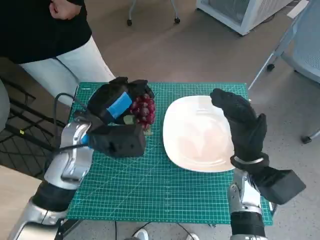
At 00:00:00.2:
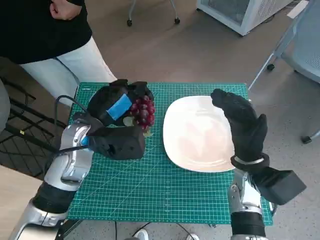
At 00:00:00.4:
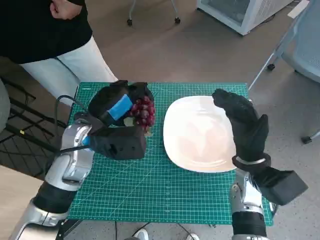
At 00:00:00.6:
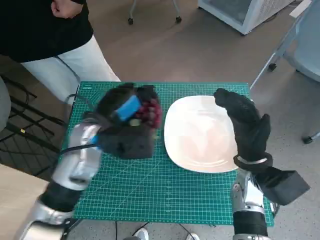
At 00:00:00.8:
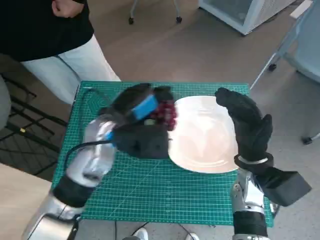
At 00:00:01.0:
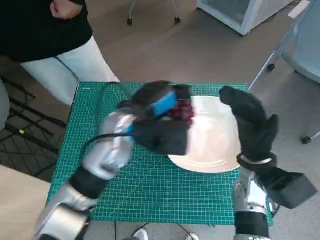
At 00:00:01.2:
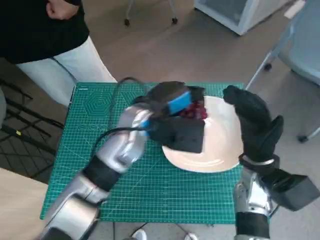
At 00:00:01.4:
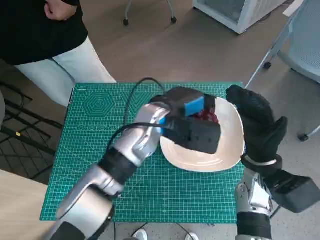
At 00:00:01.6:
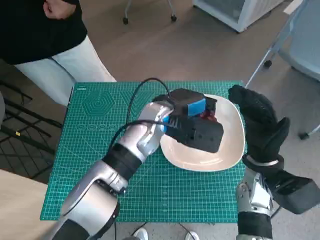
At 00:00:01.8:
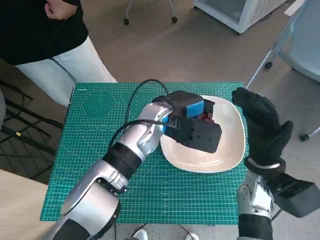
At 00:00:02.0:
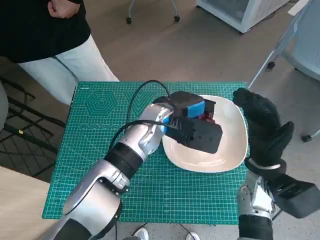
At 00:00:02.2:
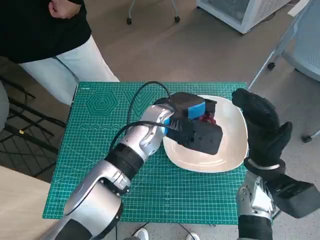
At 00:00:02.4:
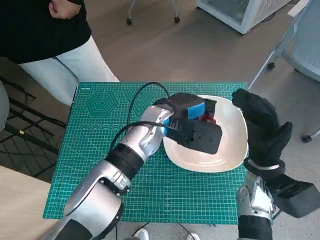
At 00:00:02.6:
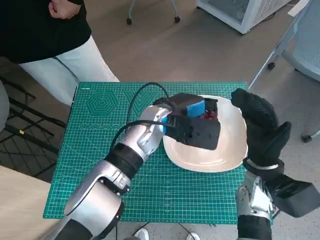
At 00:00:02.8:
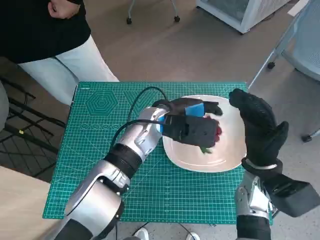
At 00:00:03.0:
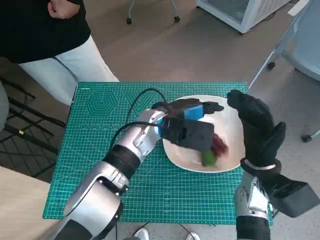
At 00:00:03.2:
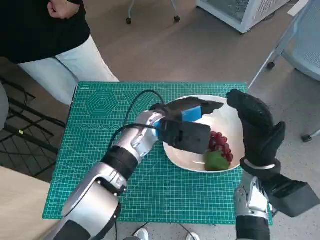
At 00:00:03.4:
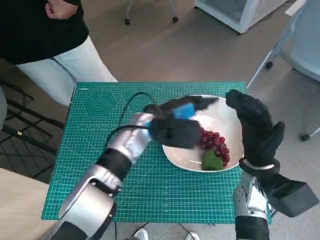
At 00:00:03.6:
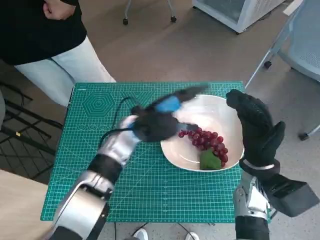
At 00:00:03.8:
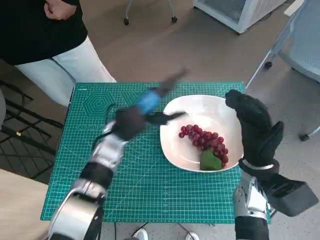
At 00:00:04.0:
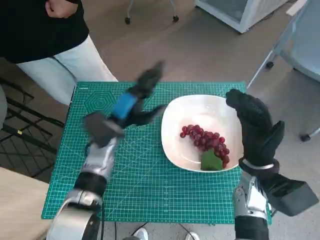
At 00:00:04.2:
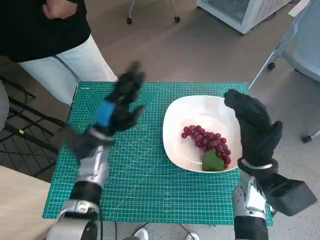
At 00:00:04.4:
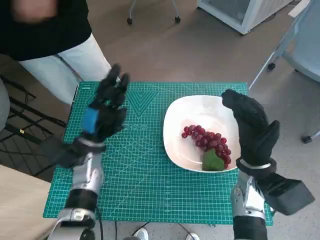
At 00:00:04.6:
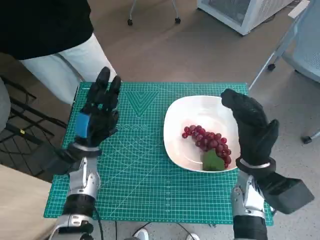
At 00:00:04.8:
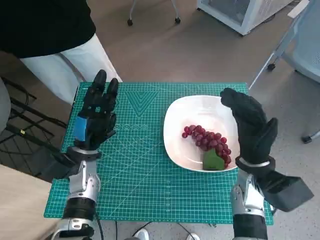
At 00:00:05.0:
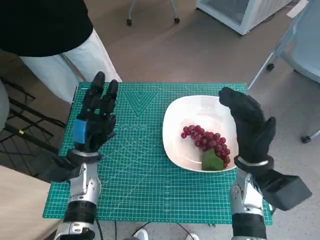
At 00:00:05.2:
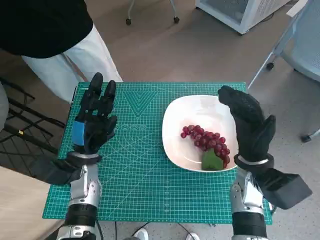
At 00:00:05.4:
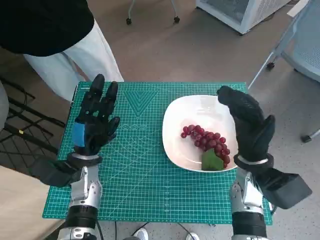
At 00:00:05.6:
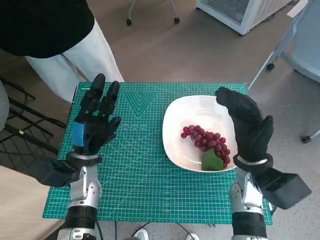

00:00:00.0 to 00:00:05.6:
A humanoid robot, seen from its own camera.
Task of the whole recording: Pick up the grapes and put them on the plate.
Step, 00:00:00.0 to 00:00:03.2: Place the grapes in the plate with left hand.
00:00:00.0 to 00:00:01.4: The left hand travels to the right by approximately 10 cm.
00:00:01.4 to 00:00:02.8: There are only small adjustments of the hands.
00:00:02.8 to 00:00:04.2: The left hand travels to the left and downward by roughly 15 cm.
00:00:04.2 to 00:00:05.6: The left hand moves approximately 5 cm.

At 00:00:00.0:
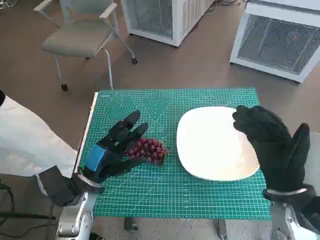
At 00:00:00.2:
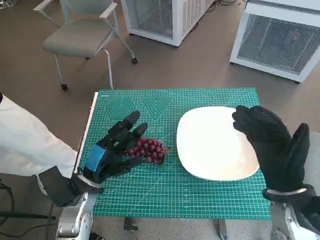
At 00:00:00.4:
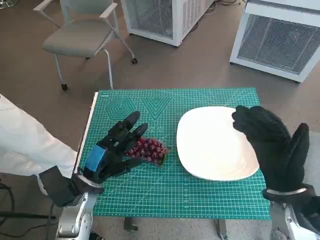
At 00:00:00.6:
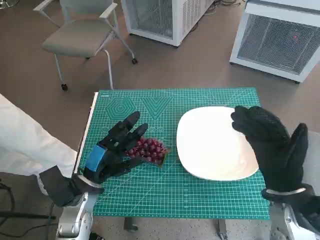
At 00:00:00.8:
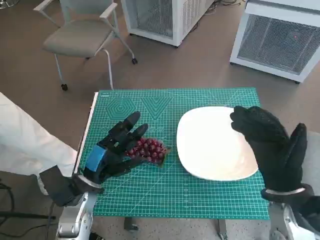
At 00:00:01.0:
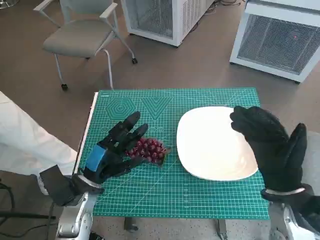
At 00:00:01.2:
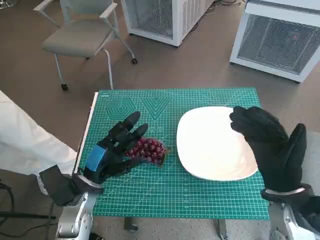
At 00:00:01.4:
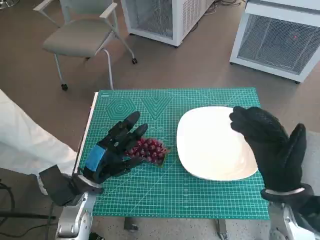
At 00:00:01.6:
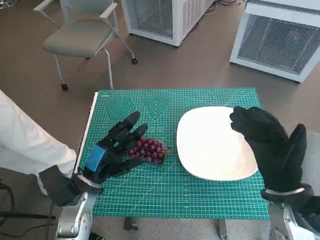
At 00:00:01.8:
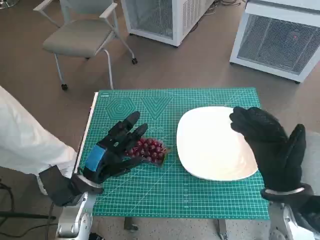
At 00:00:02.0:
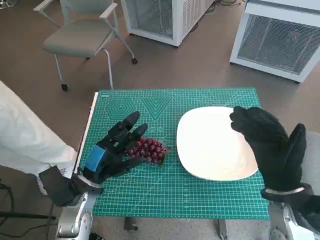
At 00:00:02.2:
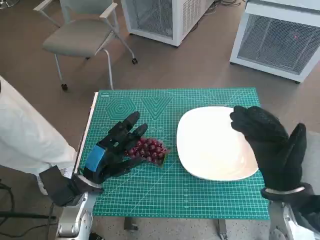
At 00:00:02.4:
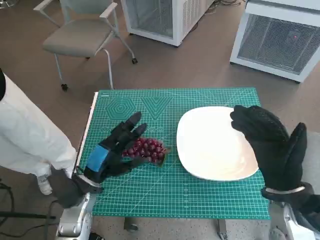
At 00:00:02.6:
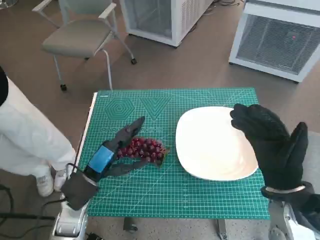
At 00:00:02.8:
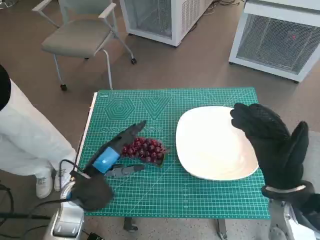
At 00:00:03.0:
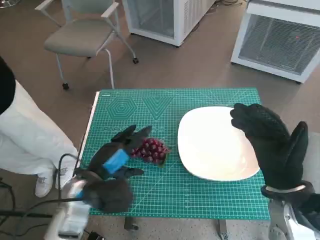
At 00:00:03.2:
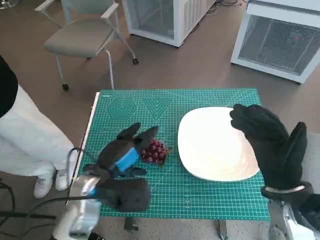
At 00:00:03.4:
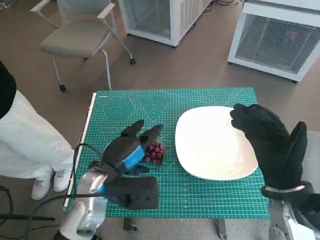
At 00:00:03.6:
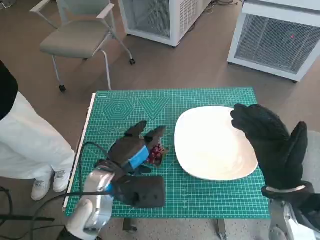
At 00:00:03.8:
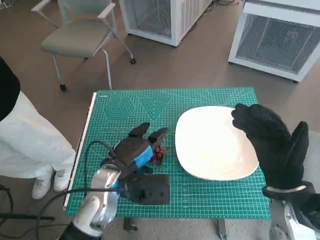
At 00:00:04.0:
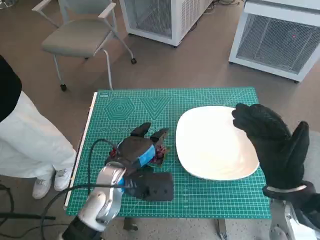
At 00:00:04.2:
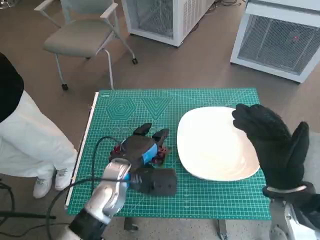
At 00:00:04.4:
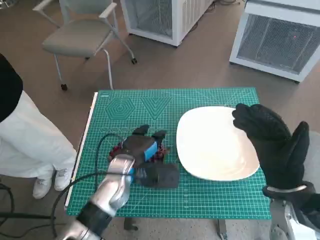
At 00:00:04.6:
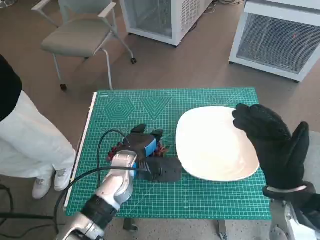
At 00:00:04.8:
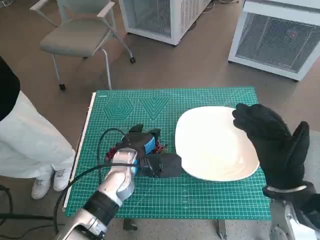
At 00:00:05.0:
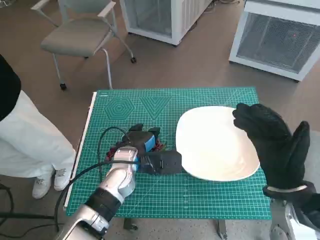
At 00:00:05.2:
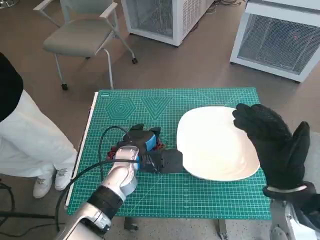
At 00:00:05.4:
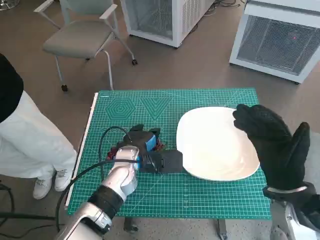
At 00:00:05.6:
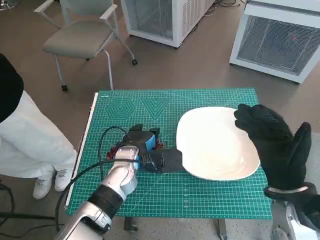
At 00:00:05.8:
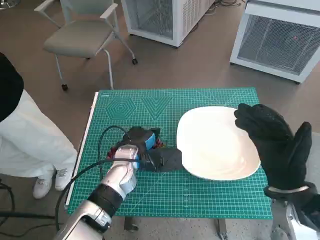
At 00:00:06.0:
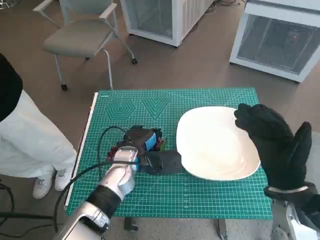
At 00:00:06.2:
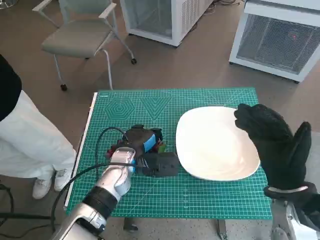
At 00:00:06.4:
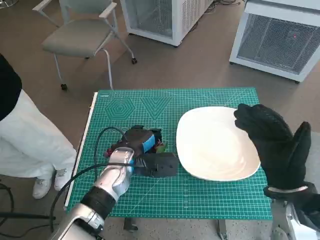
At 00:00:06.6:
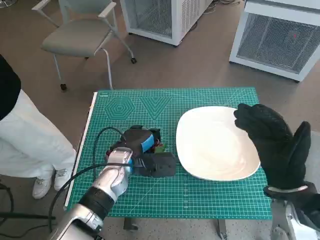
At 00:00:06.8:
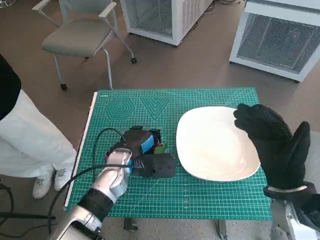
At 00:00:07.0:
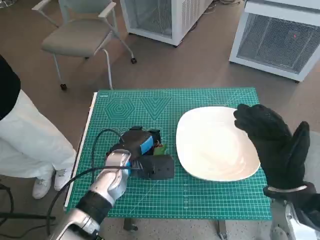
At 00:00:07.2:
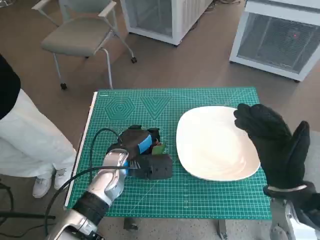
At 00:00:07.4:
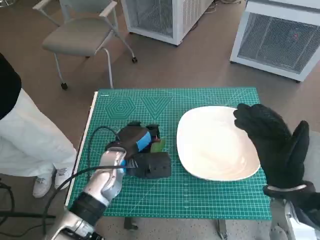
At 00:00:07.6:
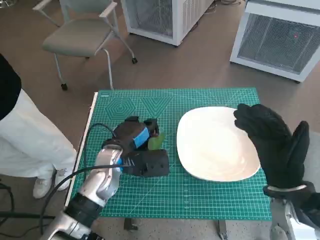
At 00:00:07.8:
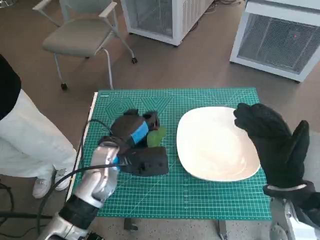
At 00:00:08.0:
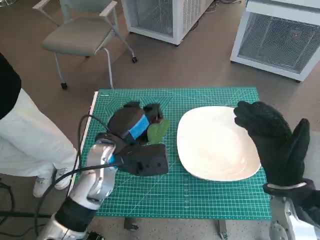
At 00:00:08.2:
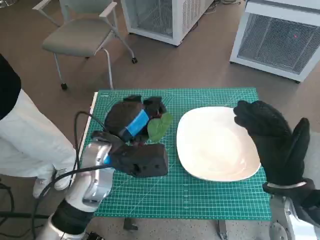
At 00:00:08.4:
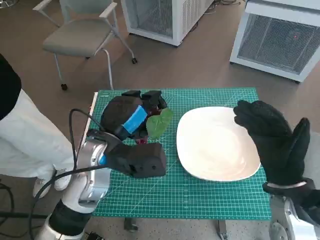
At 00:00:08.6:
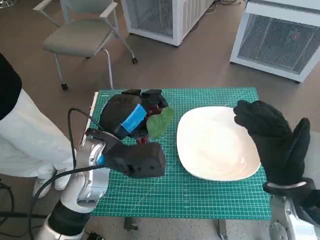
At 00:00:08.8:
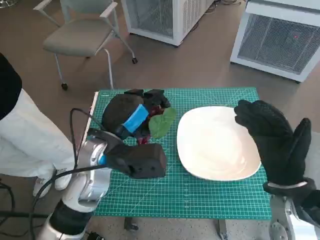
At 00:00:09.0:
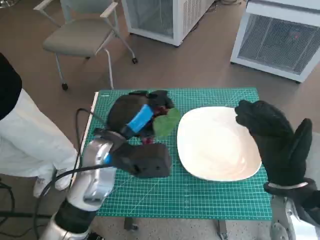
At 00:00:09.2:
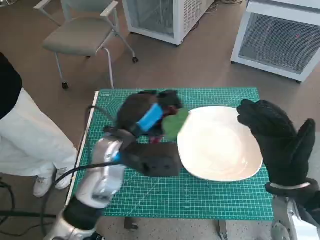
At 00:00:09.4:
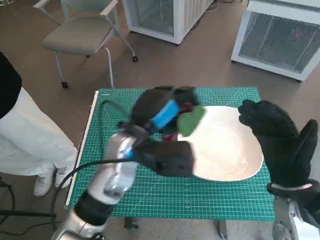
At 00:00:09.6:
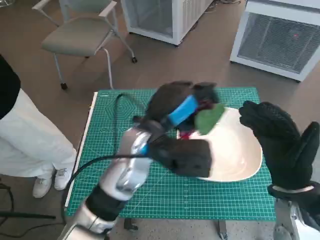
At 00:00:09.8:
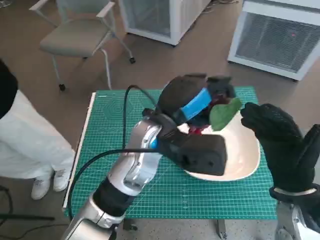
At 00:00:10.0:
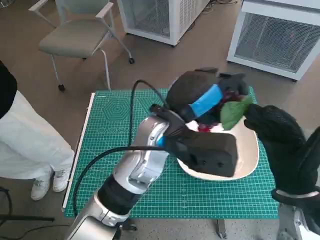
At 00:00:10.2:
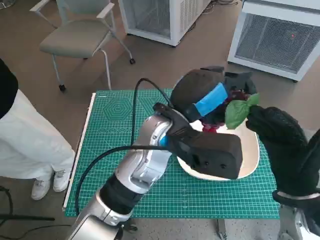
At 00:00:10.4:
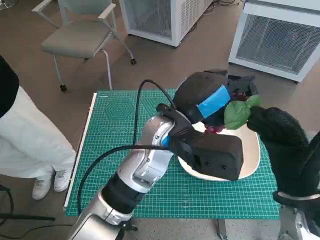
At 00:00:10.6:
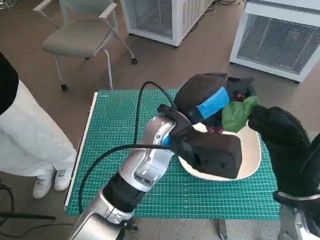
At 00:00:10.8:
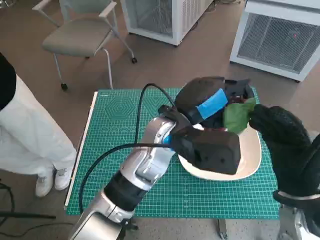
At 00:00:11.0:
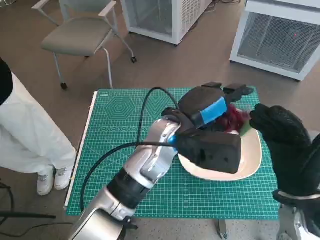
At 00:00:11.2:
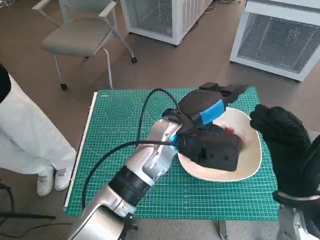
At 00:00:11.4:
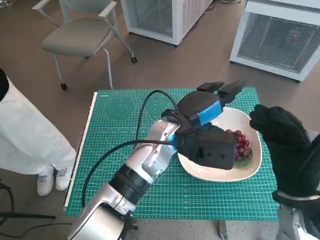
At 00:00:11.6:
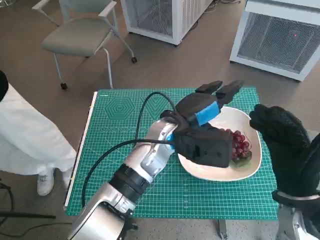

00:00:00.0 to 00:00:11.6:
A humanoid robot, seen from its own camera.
Task of the whole recording: Pick up the grapes and put them on the plate.
Step, 00:00:00.0 to 00:00:06.6: Grasp the grapes with left hand.
Step, 00:00:07.0 to 00:00:11.2: Place the grapes in the plate with left hand.
00:00:02.8 to 00:00:04.4: The left hand shifts approximately 10 cm to the right and forward.
00:00:04.4 to 00:00:07.2: The hands make only small movements.
00:00:07.2 to 00:00:08.8: The left hand heads upward, covering roughly 10 cm.
00:00:08.8 to 00:00:10.2: The left hand heads to the right, covering approximately 10 cm.
00:00:10.2 to 00:00:11.6: The left hand shifts some 5 cm downward.

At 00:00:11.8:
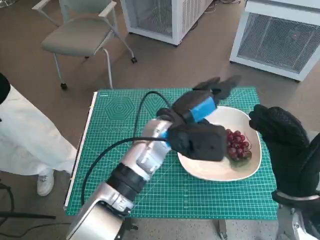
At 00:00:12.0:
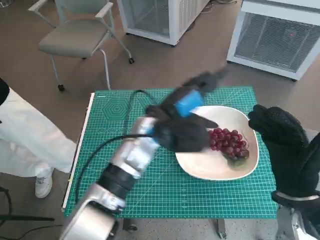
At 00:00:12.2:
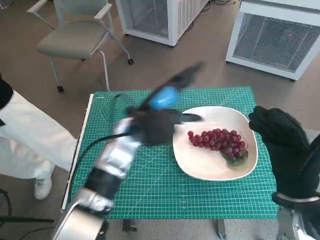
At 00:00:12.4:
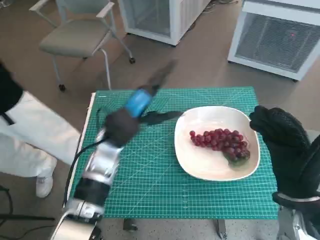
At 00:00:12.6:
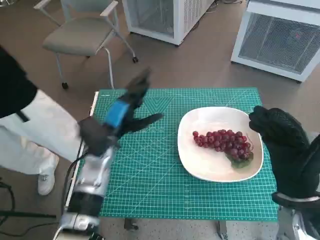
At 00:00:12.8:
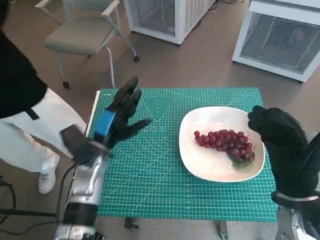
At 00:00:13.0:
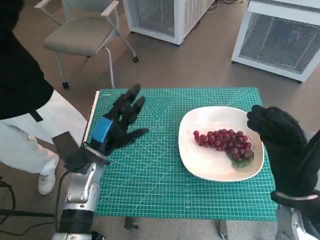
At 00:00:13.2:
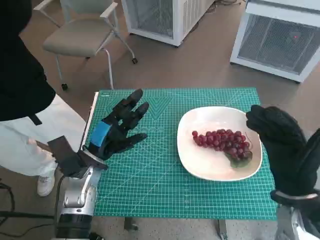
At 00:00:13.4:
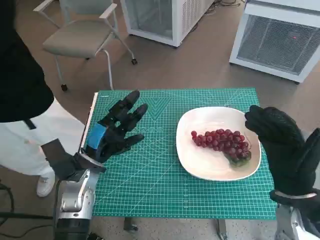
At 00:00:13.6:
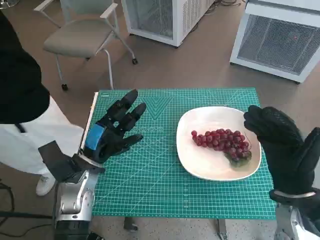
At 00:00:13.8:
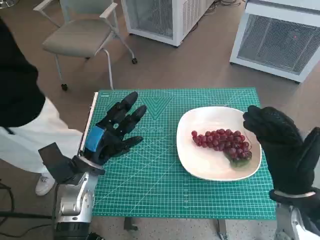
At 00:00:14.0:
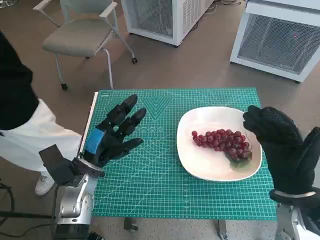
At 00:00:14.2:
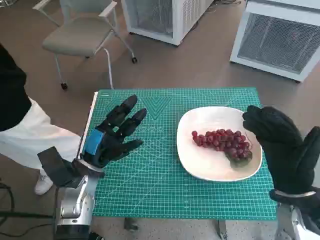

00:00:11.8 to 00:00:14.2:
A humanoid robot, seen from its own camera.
Task of the whole recording: Pick up the grapes and put them on the plate.
00:00:11.8 to 00:00:13.0: The left hand goes approximately 20 cm to the left and downward.
00:00:13.0 to 00:00:14.2: The hands stay close to where they were, moving slightly.
